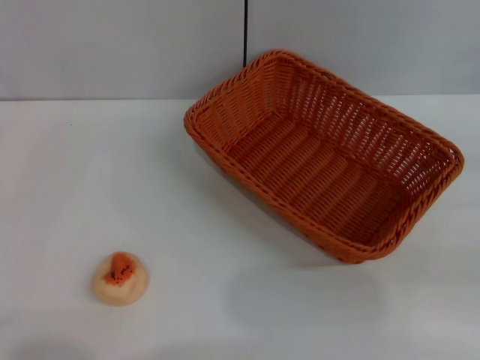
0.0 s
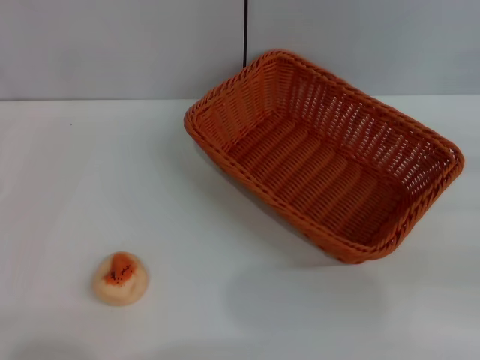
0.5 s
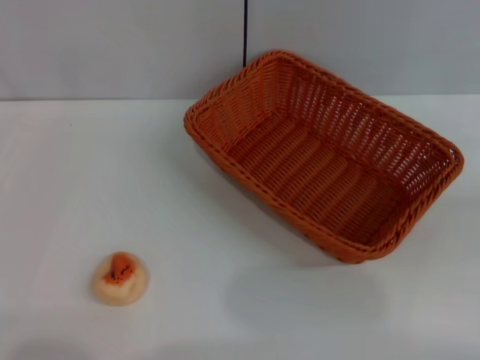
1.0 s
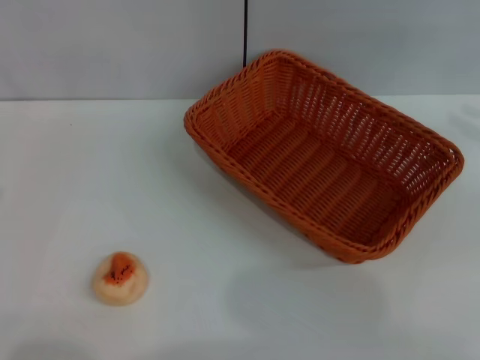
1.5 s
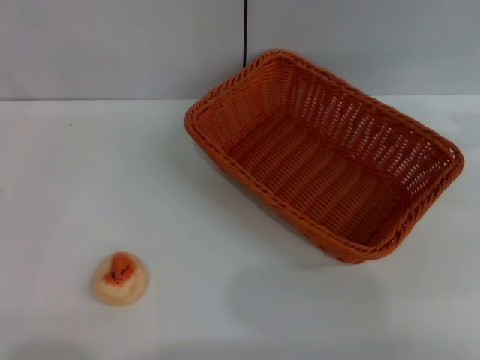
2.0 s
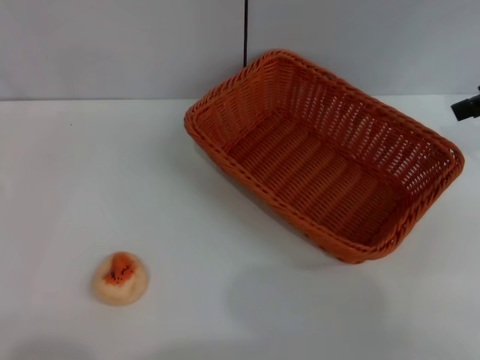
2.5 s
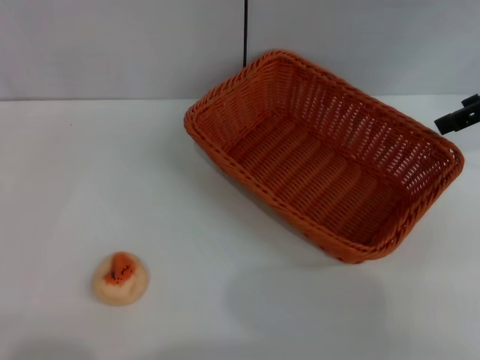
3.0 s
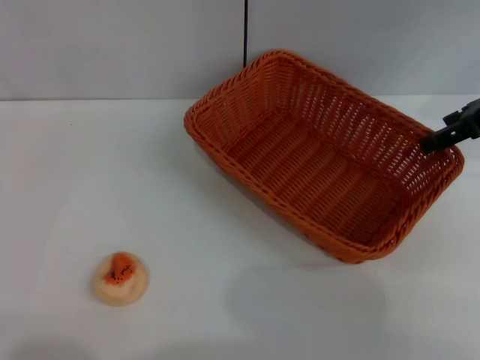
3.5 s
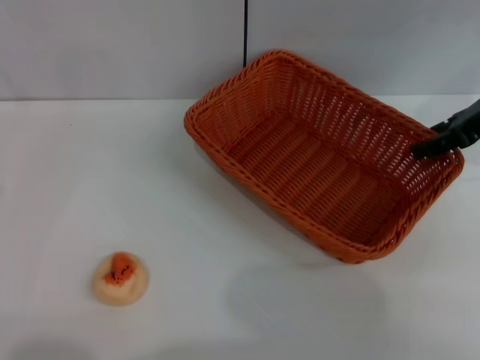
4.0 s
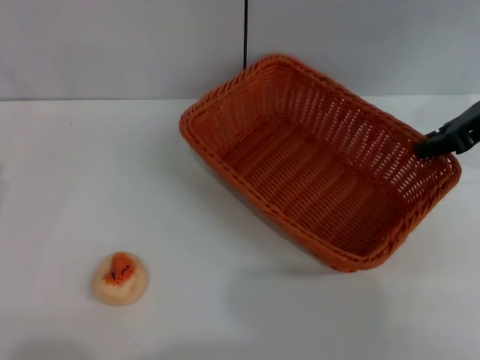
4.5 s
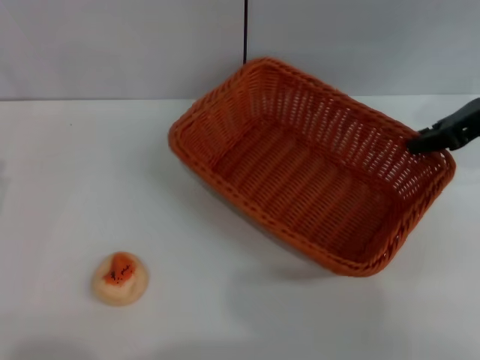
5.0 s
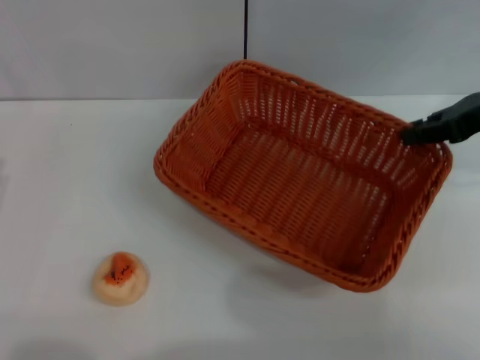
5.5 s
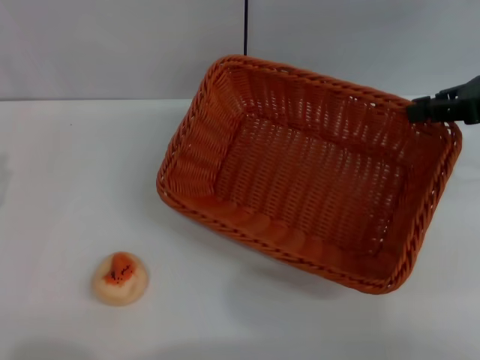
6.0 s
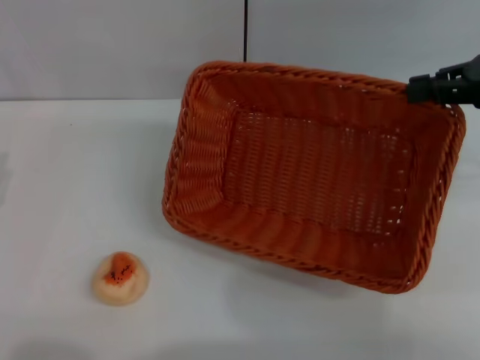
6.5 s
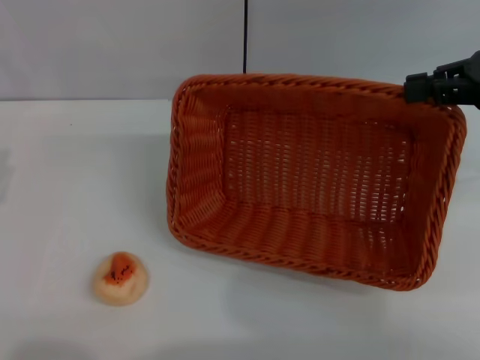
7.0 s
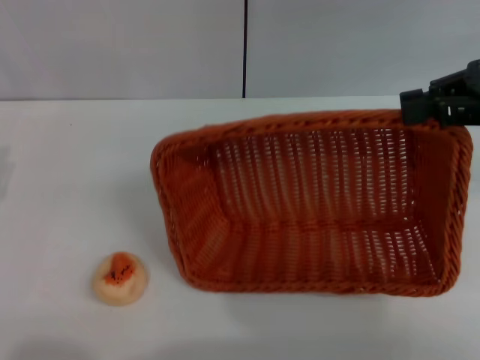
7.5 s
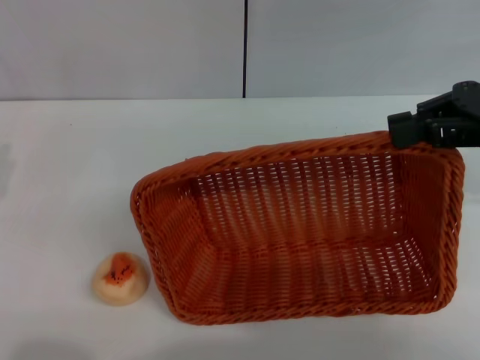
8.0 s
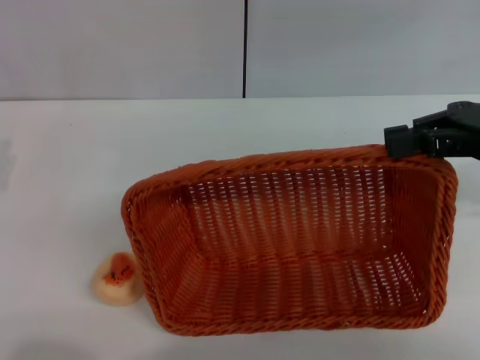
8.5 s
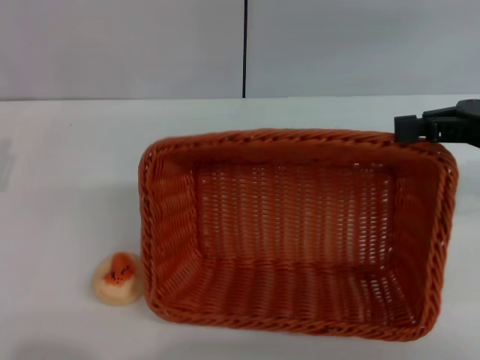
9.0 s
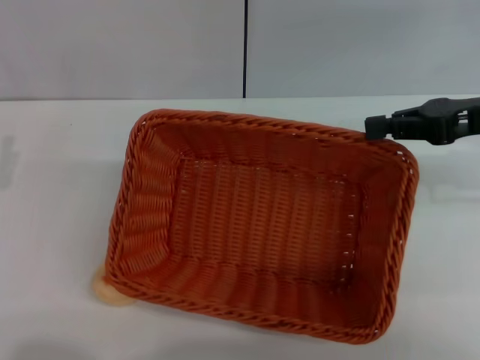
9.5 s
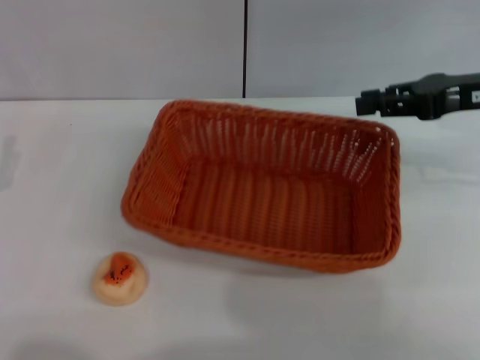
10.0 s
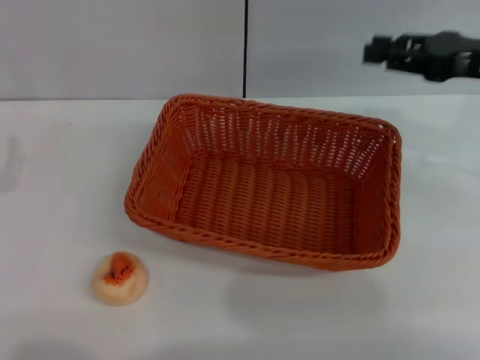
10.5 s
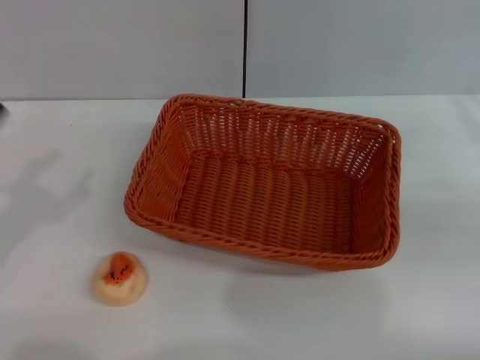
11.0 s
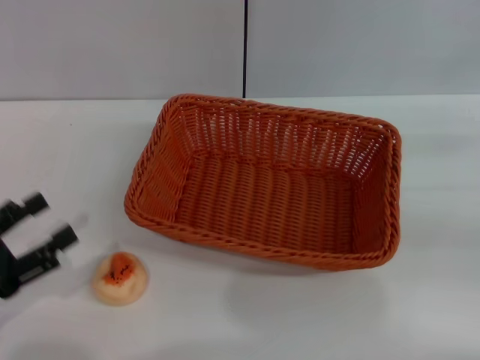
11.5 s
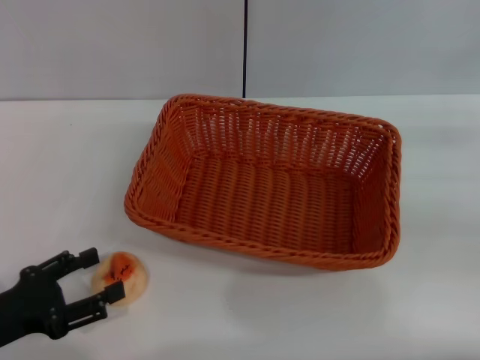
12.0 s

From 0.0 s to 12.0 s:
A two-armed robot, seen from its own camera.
Step, from 0.0 s to 10.0 s: Move the basket to the center of view with the right gripper.
From 0.0 s to 2.0 s: The right gripper moves upward and forward, about 20 cm, and opens up.
From 2.0 s to 4.0 s: The right gripper is displaced downward and to the left by roughly 10 cm.
From 4.0 s to 6.0 s: The right gripper closes up.
From 8.0 s to 10.0 s: The right gripper shifts by roughly 5 cm.
From 10.0 s to 12.0 s: The left gripper shifts by approximately 5 cm. The right gripper travels to the right, backward and downward by approximately 15 cm.

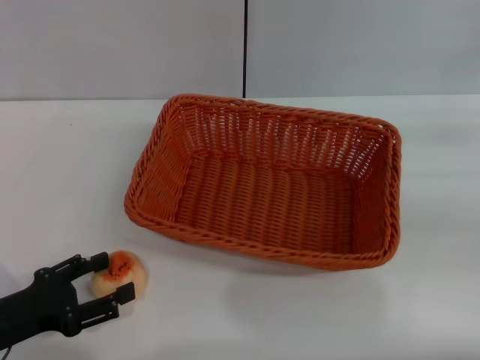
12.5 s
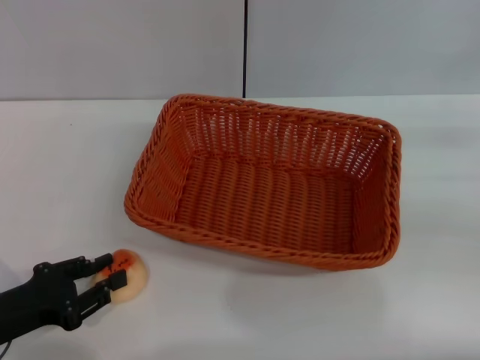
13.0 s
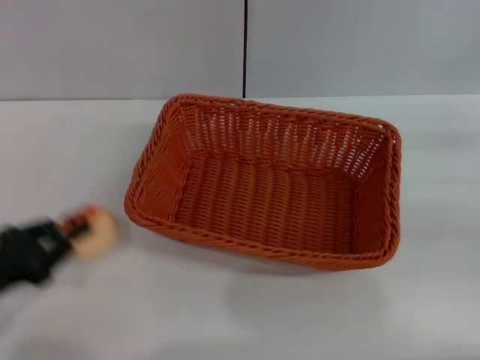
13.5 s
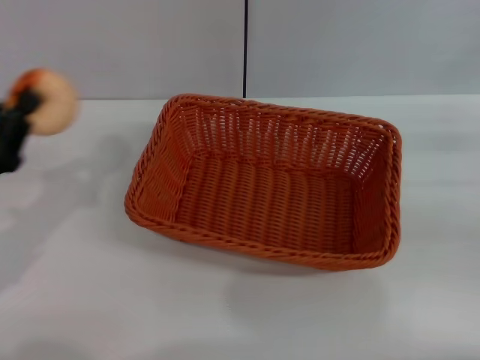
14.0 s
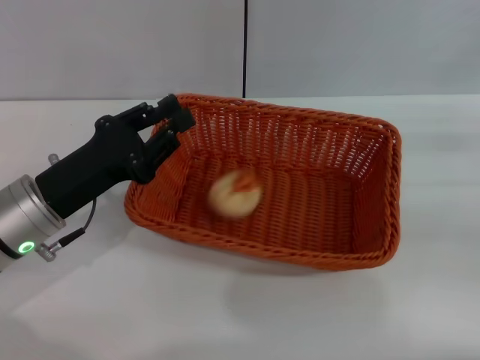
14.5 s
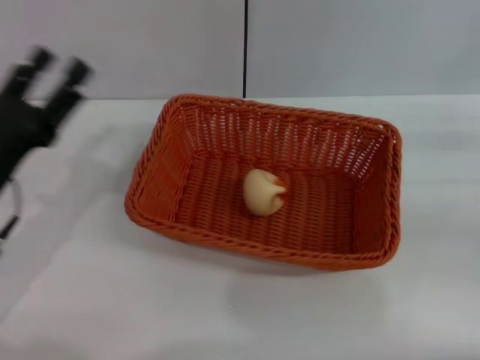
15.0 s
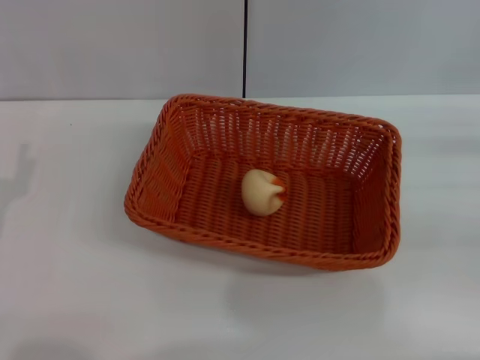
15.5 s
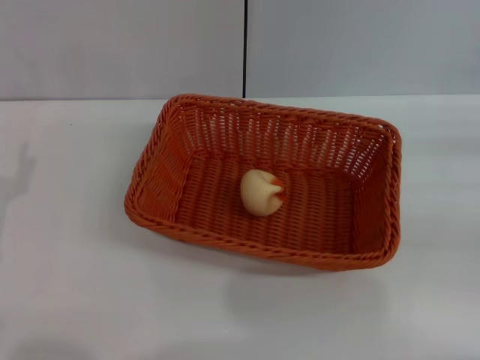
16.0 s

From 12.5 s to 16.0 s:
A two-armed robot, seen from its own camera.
Step, from 14.0 s to 14.5 s: Place the egg yolk pastry into the basket with the left gripper.
From 12.5 s to 14.5 s: The left gripper shifts about 10 cm forward and to the right, and closes up.
From 14.5 s to 16.0 s: The left gripper travels to the left and backward by about 10 cm, and opens.
